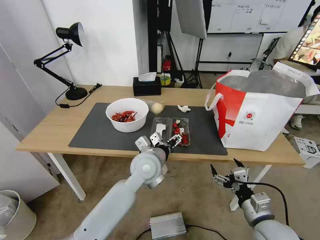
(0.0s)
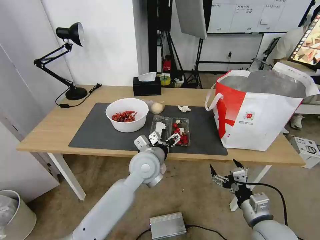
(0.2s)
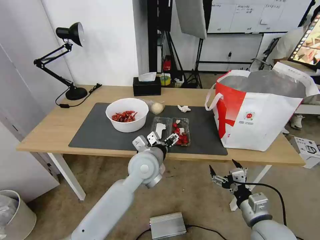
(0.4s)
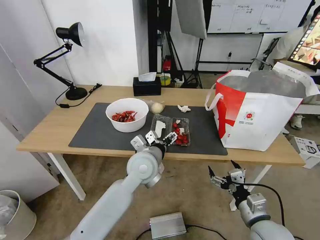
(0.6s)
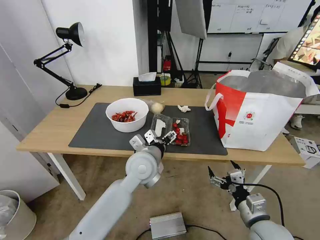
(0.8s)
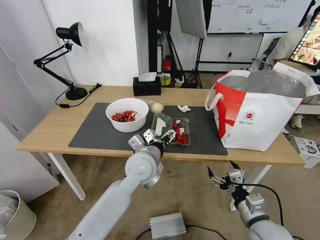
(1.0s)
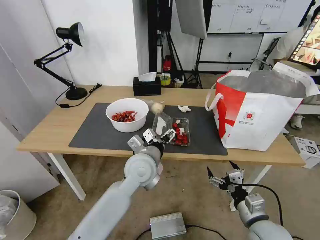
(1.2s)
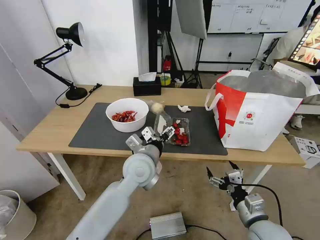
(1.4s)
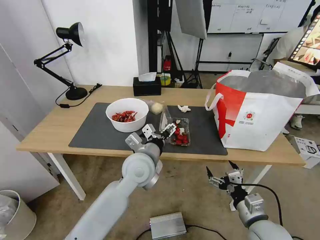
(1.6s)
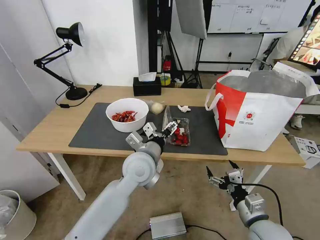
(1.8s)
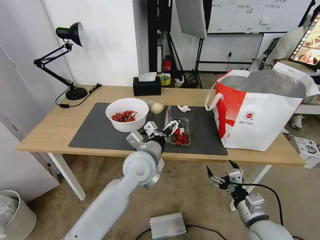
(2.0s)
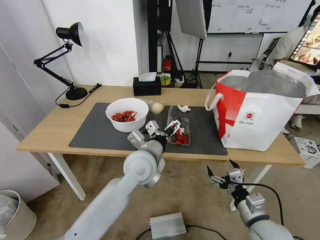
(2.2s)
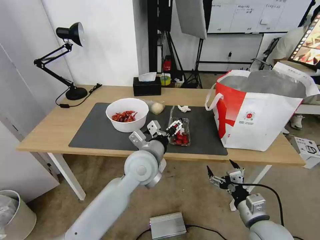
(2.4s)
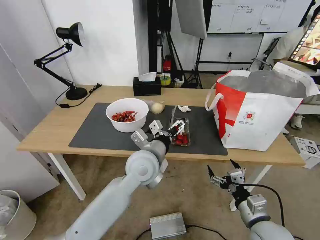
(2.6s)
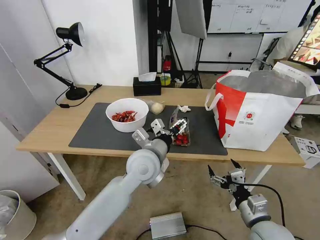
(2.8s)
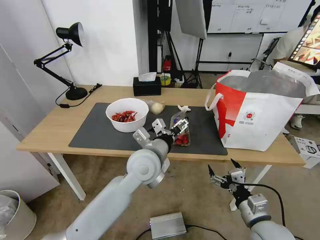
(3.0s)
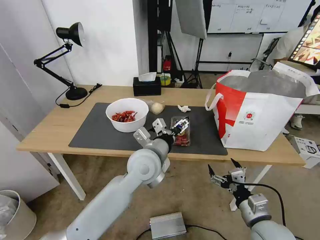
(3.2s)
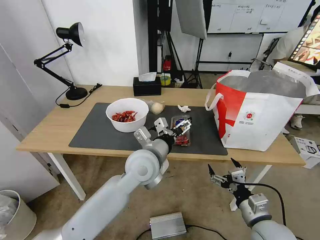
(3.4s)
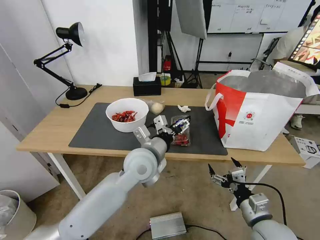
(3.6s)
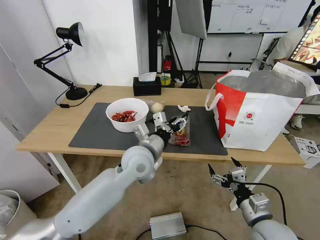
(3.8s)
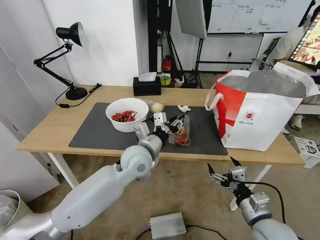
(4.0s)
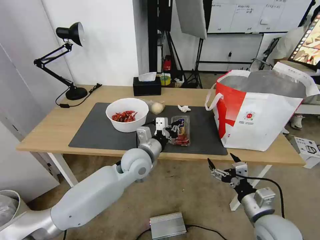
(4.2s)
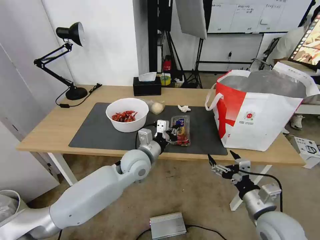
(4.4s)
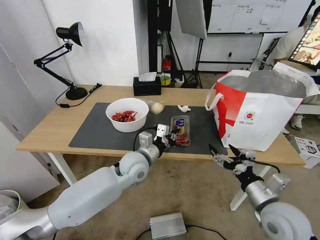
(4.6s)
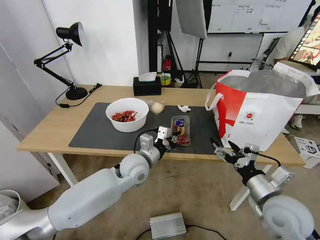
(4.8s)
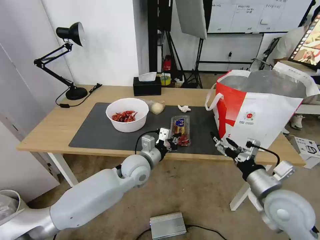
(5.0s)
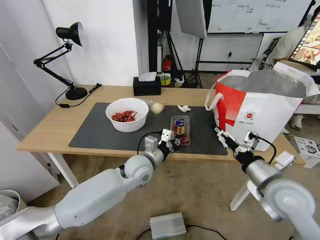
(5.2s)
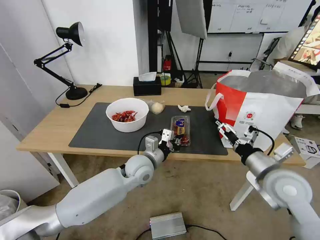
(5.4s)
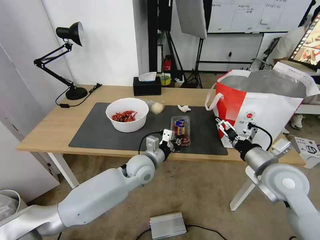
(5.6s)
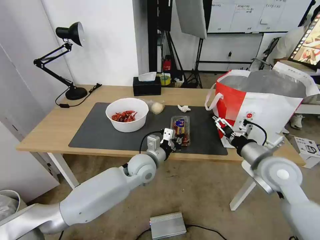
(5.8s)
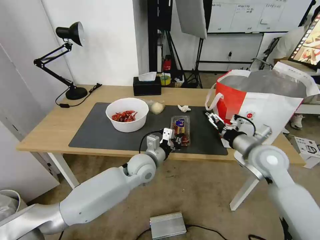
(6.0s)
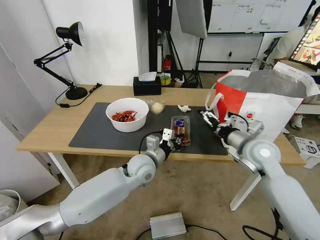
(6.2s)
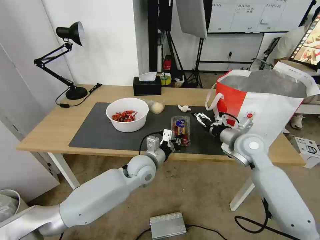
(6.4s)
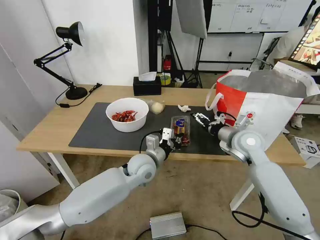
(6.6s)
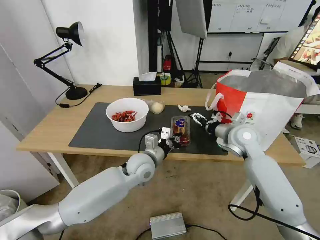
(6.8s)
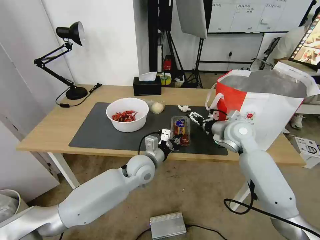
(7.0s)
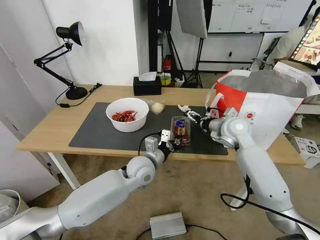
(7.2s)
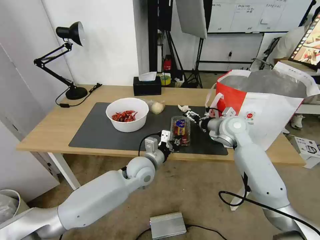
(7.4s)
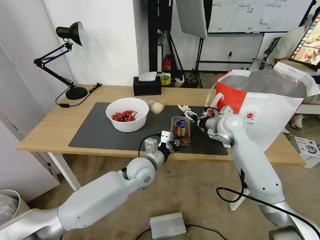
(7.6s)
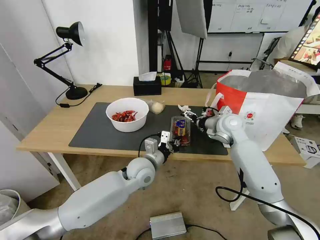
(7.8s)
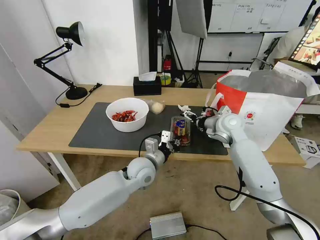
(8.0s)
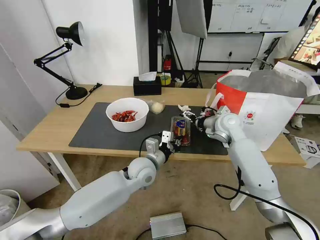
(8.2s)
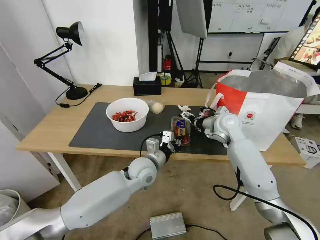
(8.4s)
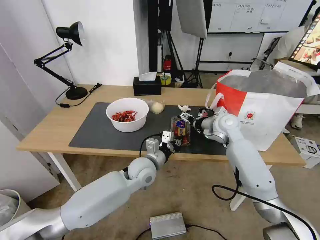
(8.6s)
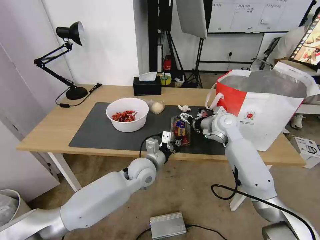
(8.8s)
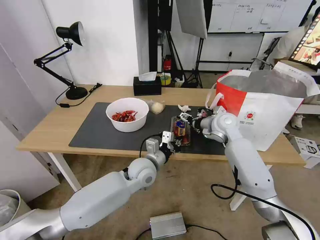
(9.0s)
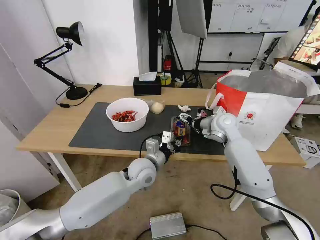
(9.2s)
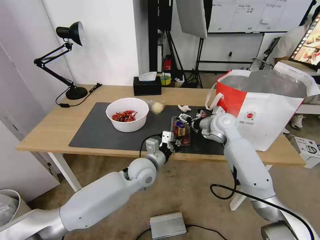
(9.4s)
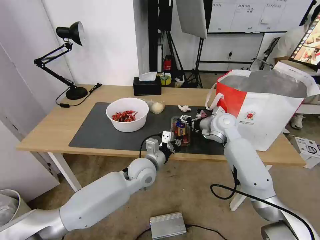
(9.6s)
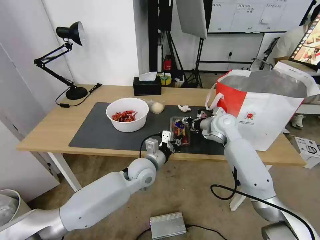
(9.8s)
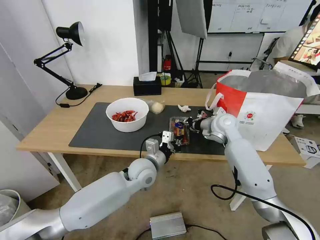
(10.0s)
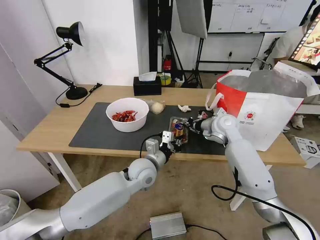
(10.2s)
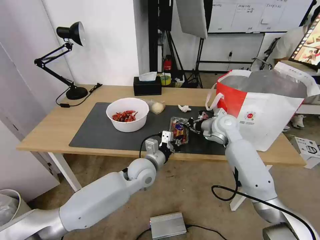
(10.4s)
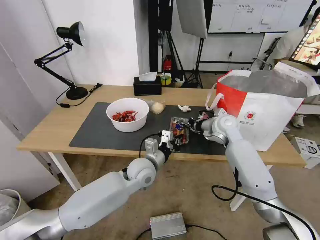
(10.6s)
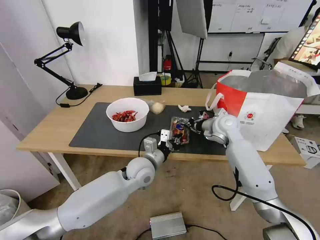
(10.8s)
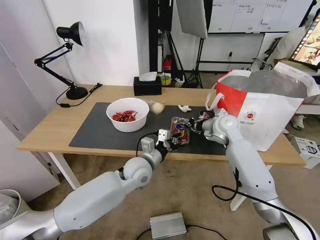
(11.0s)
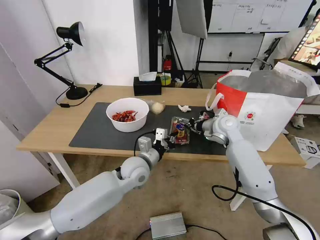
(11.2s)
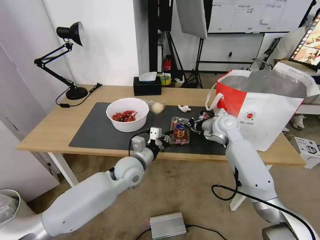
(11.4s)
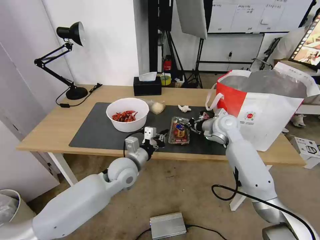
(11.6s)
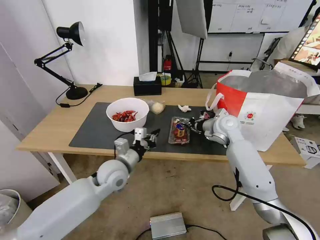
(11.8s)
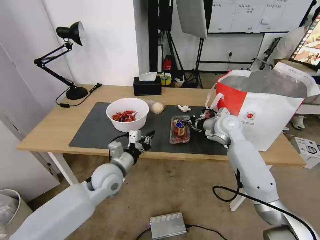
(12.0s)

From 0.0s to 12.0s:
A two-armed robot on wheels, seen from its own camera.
Task of the whole recording: Pick up the trash from the table and place it into the takeout bag.
From 0.0s to 3.0s: The grippers make only small movements.
From 3.0s to 4.4s: The left gripper goes some 5 cm downward, and closes its fingers.
From 4.4s to 6.0s: The right gripper travels forward and upward by about 20 cm.
From 6.0s to 7.6s: The right gripper is displaced forward by roughly 15 cm.
From 7.6s to 9.0s: The grippers stay close to where they were, moving slightly.
From 9.0s to 10.4s: The right gripper closes.
From 10.4s to 12.0s: The left gripper heads to the left, covering roughly 10 cm.

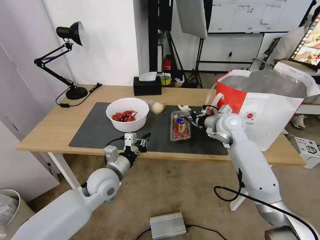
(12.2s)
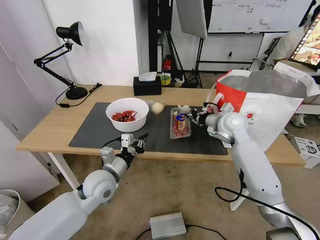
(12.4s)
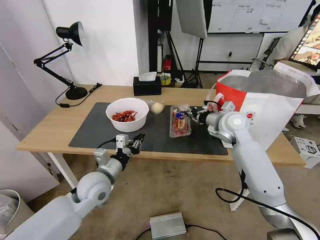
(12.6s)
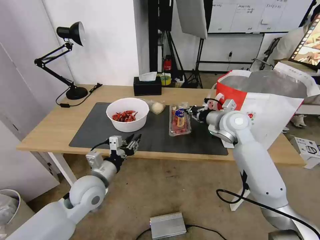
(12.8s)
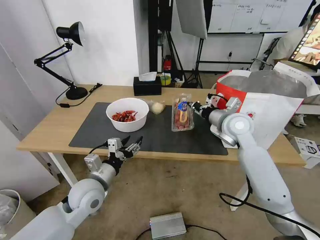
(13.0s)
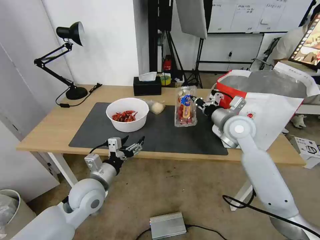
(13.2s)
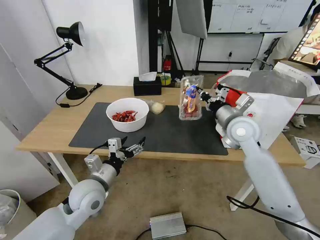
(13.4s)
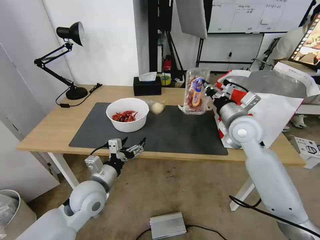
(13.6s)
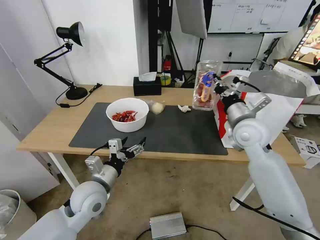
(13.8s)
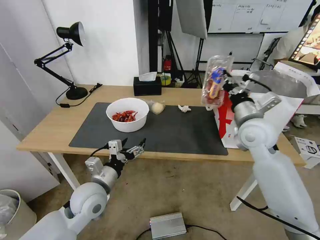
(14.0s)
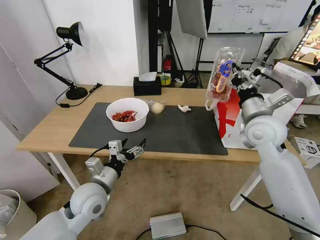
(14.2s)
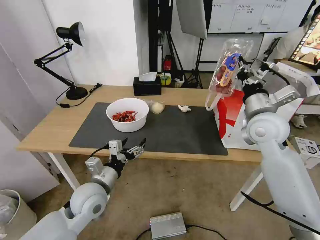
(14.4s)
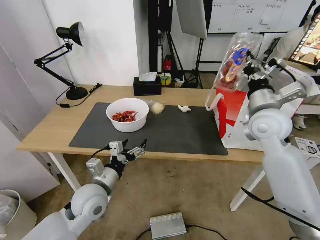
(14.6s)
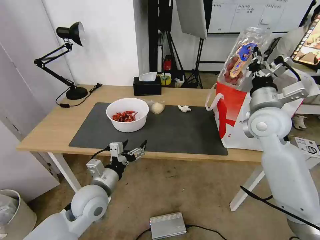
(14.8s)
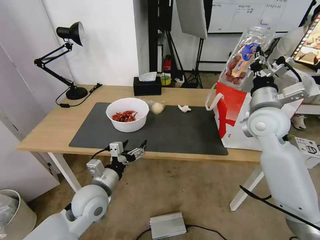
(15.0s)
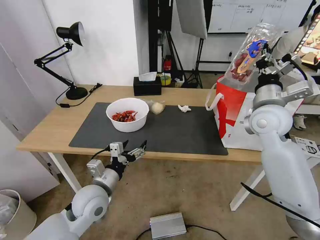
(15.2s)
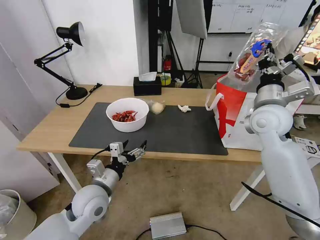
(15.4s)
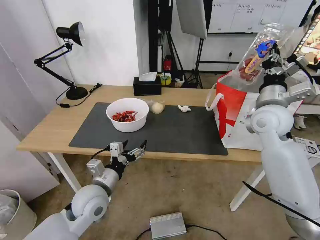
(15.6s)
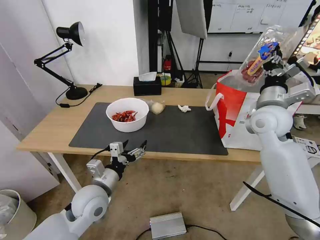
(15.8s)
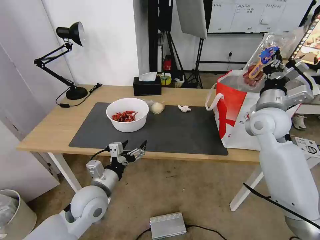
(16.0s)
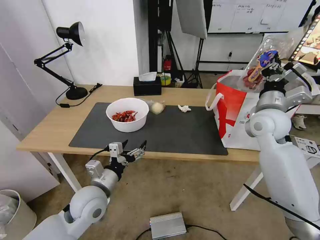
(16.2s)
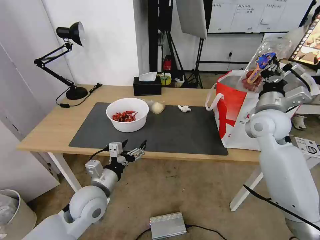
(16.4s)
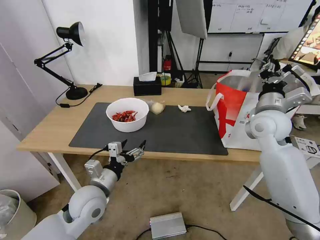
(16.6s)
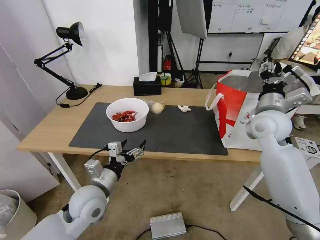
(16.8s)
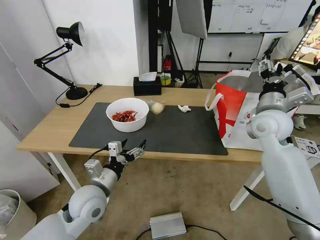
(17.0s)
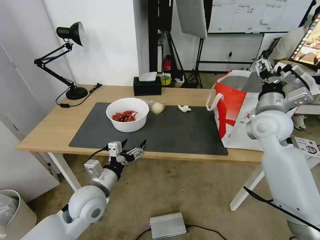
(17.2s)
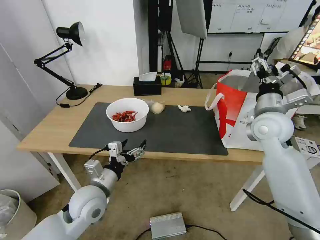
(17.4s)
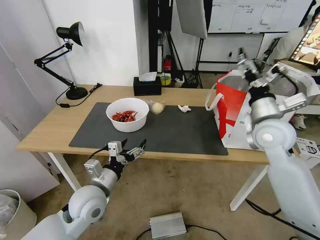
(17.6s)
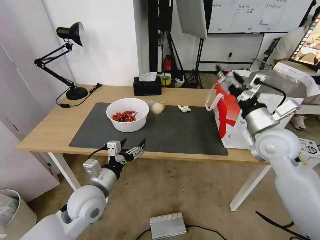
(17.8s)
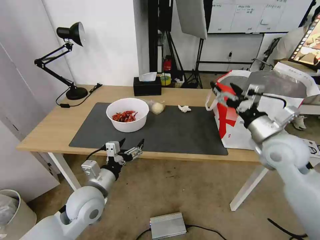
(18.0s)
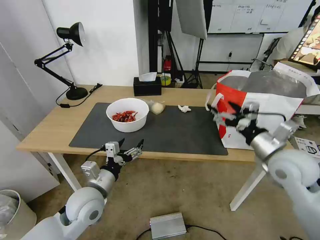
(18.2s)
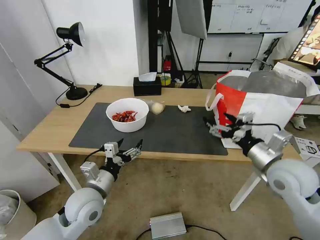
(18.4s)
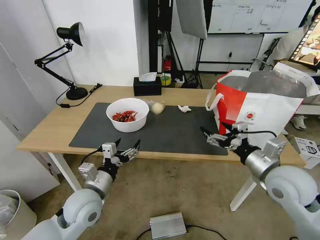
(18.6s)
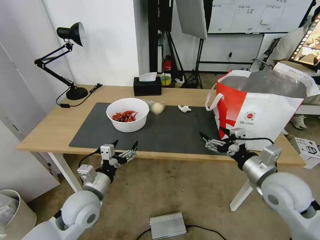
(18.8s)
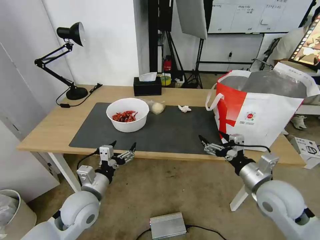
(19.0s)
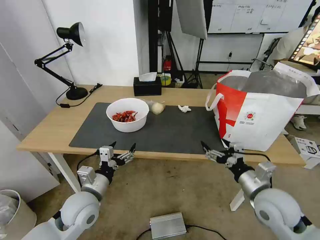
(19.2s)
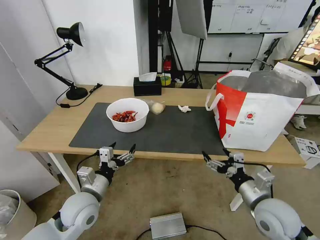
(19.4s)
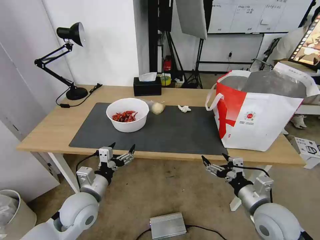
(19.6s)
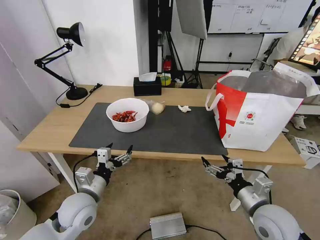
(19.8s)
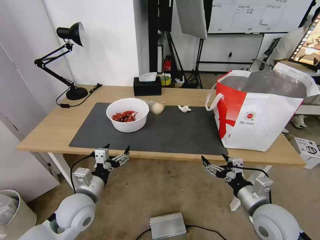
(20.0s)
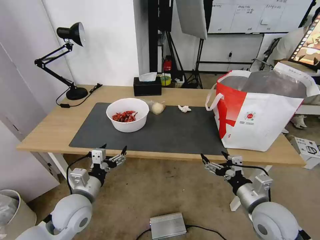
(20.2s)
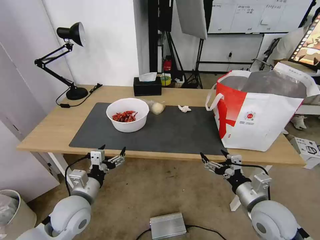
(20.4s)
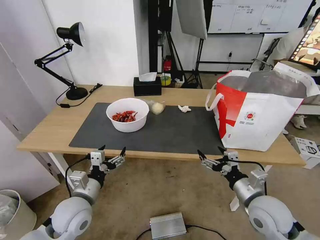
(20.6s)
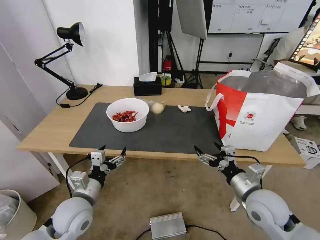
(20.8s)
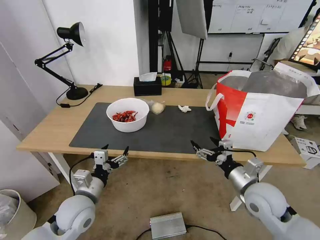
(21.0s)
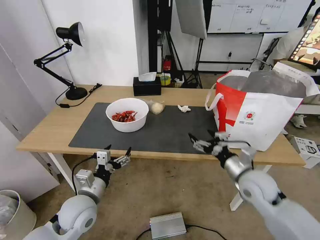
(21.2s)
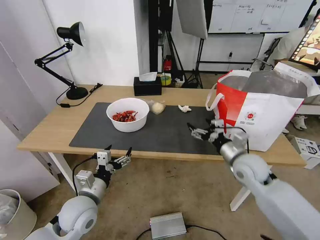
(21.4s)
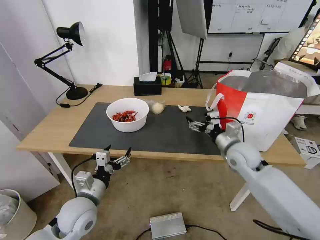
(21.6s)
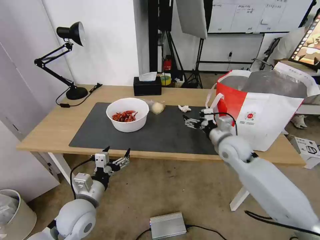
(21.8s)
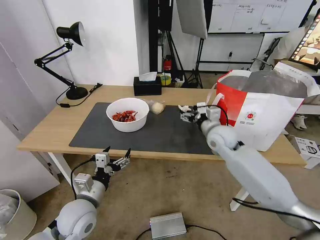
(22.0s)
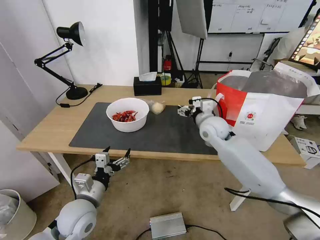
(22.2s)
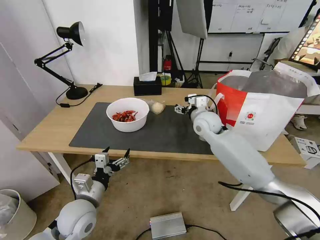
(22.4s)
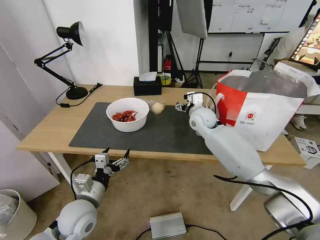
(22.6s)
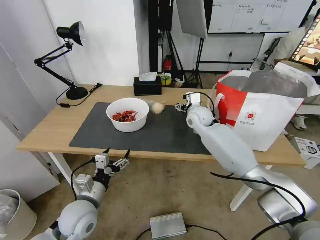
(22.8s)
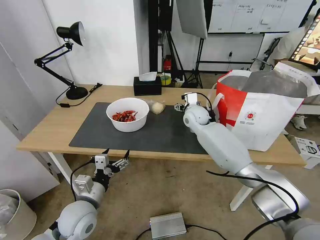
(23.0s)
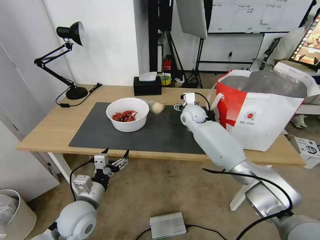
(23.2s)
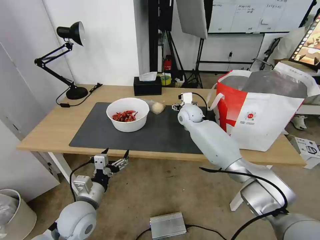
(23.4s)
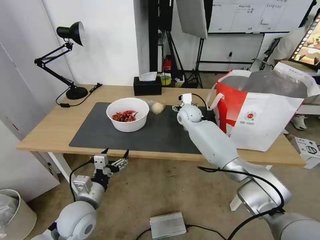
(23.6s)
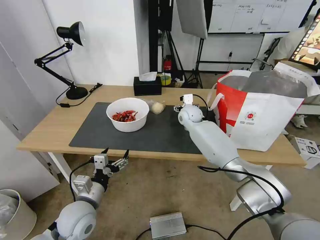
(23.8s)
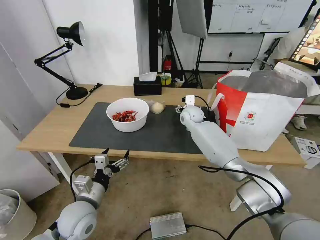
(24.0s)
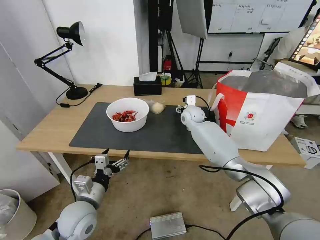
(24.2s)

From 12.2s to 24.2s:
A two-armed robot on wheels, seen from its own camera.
Task of the whole recording: Pick up the trash from the table and place it into the takeout bag.
From 12.2s to 13.8s: The right gripper moves backward and upward, approximately 10 cm; the left gripper is displaced backward by roughly 5 cm, and opens.
From 13.8s to 15.2s: The right gripper shifts by some 5 cm.
From 15.2s to 16.6s: The grippers move only a little.
From 16.6s to 18.2s: The right gripper goes roughly 10 cm backward, and opens up.
From 18.2s to 19.8s: The right gripper shifts about 15 cm downward and backward.
From 19.8s to 21.2s: The right gripper moves forward, about 10 cm.
From 21.2s to 22.6s: The right gripper moves forward and to the left, about 25 cm.
From 22.6s to 24.2s: The right gripper shifts some 5 cm forward.
